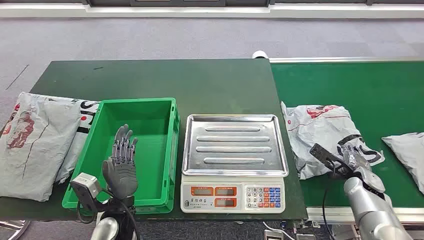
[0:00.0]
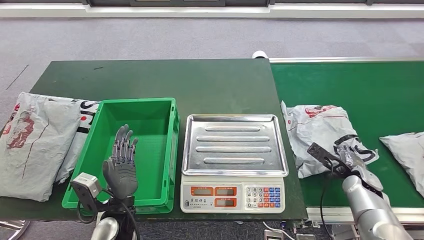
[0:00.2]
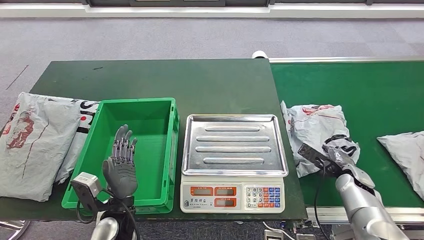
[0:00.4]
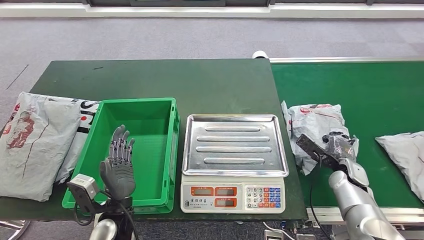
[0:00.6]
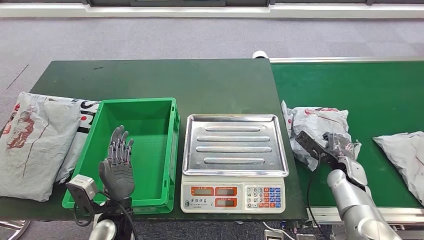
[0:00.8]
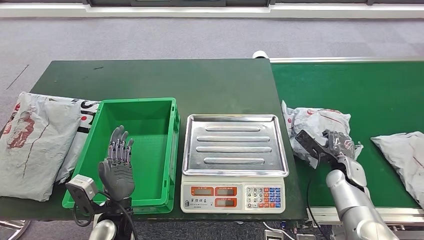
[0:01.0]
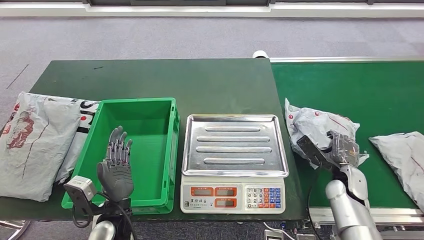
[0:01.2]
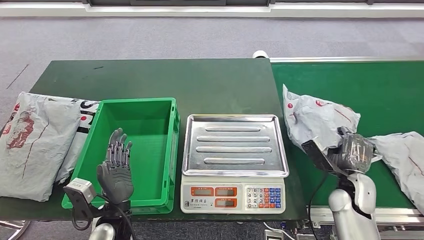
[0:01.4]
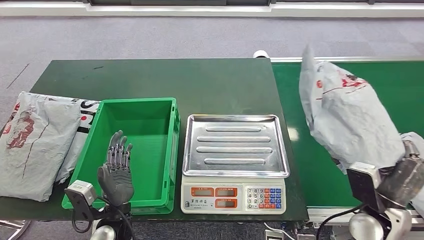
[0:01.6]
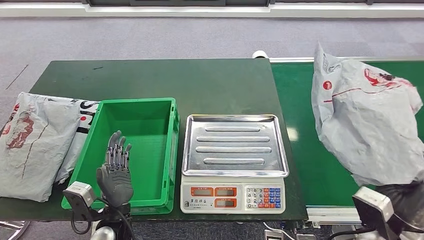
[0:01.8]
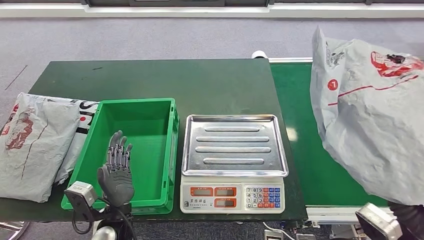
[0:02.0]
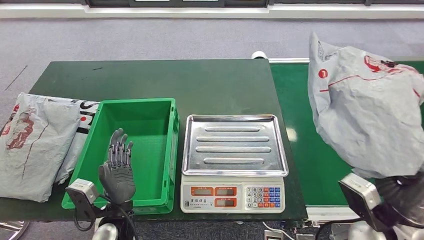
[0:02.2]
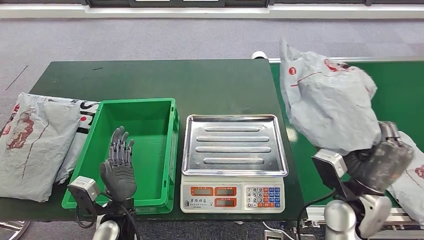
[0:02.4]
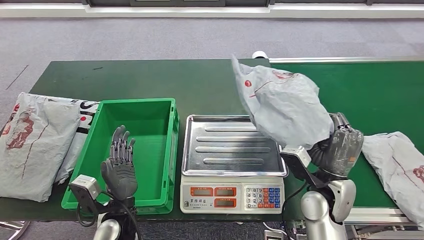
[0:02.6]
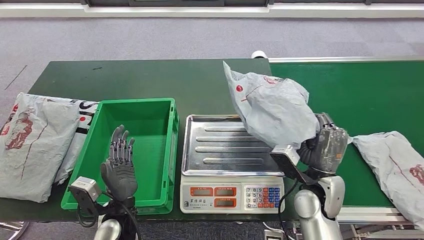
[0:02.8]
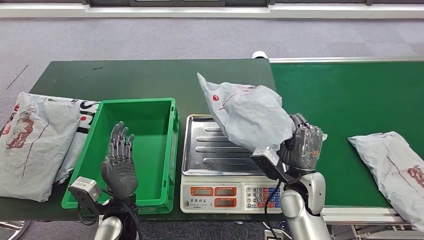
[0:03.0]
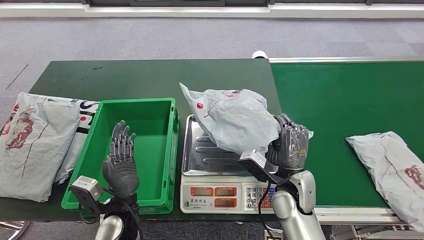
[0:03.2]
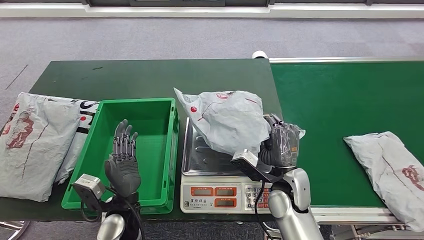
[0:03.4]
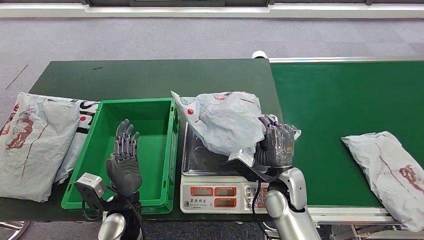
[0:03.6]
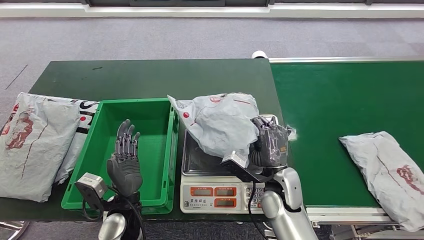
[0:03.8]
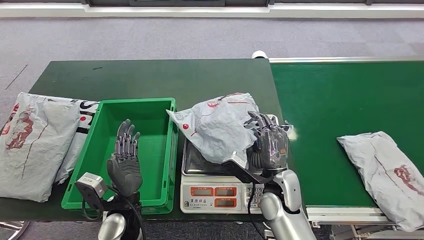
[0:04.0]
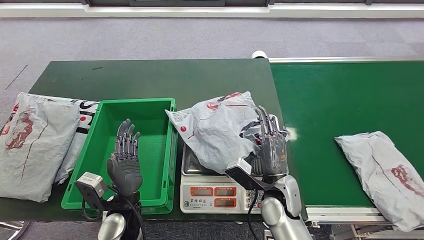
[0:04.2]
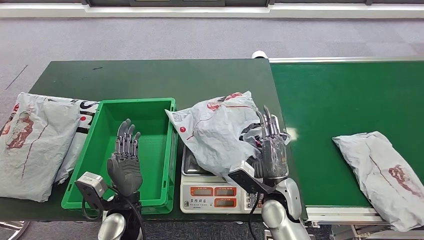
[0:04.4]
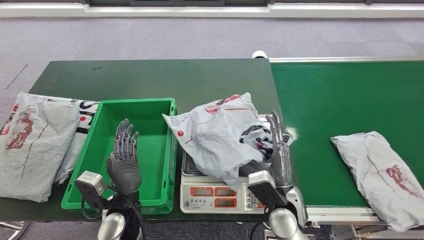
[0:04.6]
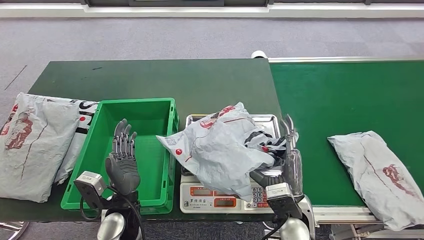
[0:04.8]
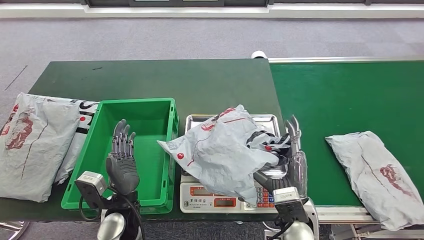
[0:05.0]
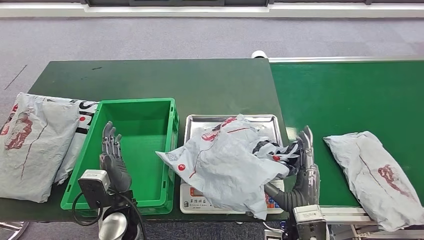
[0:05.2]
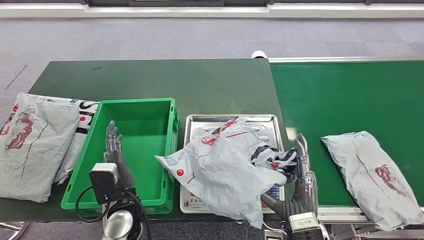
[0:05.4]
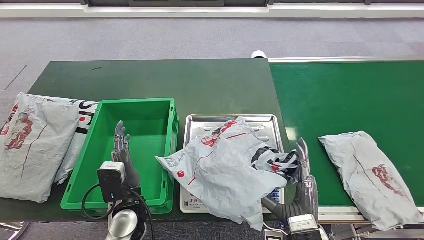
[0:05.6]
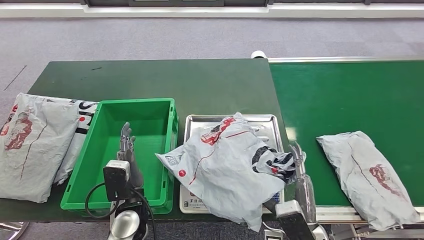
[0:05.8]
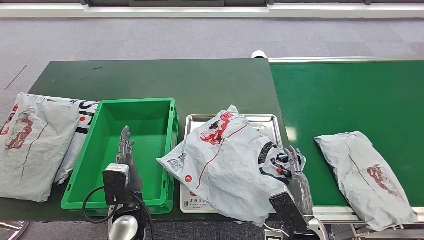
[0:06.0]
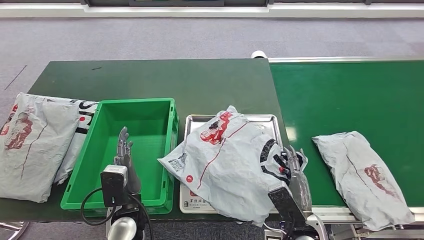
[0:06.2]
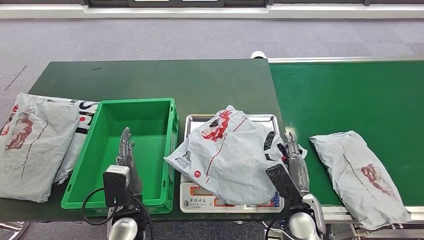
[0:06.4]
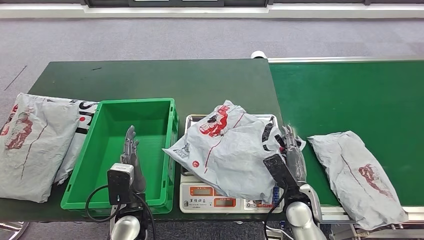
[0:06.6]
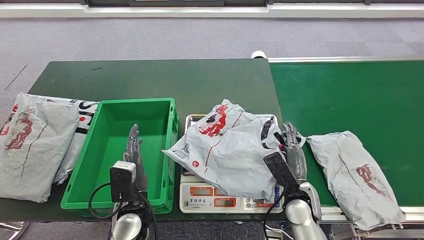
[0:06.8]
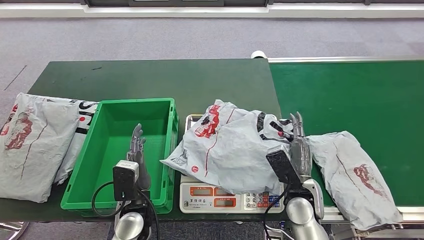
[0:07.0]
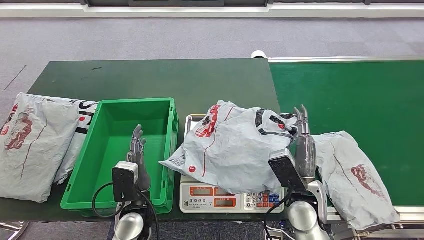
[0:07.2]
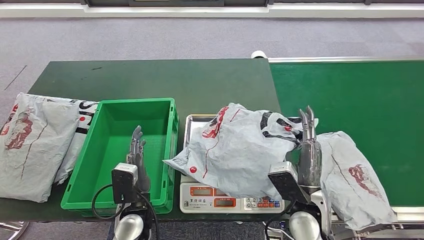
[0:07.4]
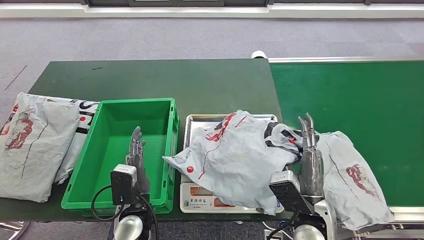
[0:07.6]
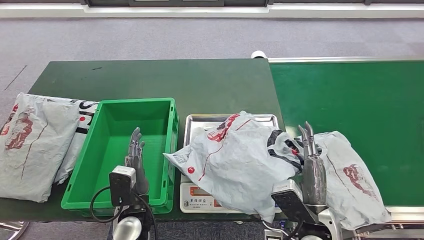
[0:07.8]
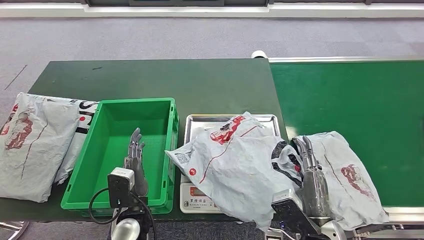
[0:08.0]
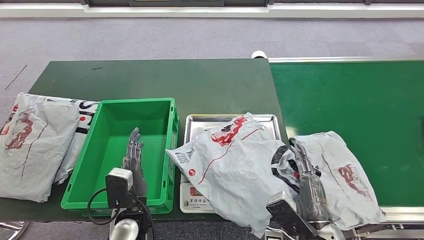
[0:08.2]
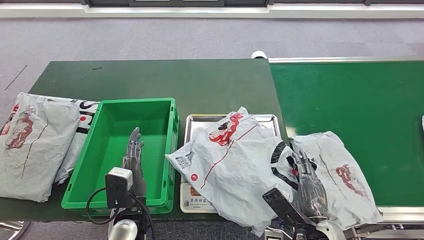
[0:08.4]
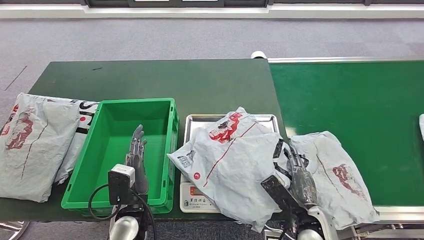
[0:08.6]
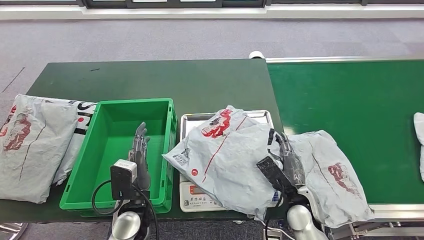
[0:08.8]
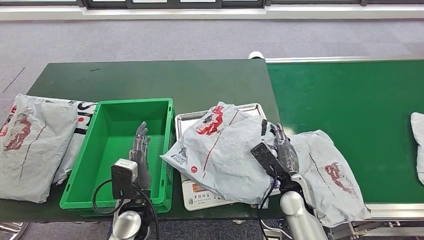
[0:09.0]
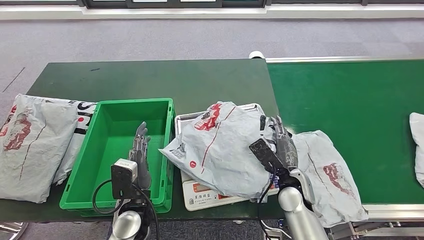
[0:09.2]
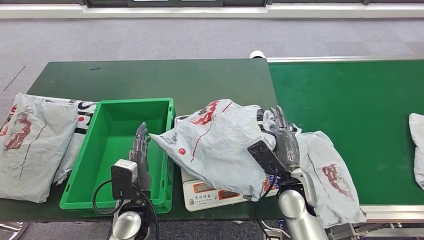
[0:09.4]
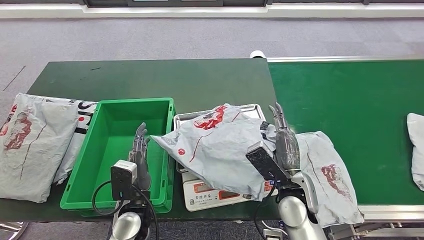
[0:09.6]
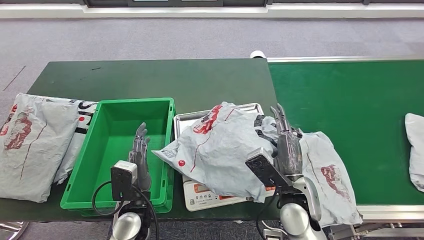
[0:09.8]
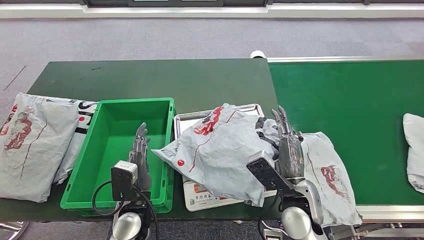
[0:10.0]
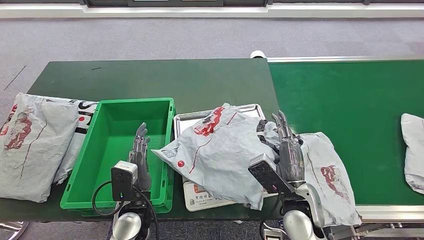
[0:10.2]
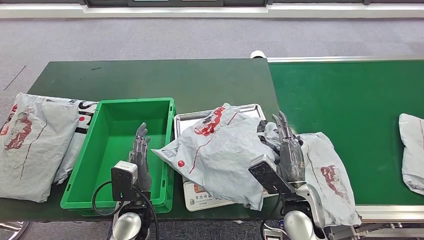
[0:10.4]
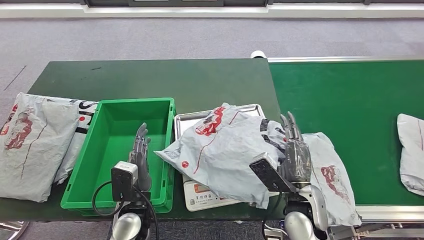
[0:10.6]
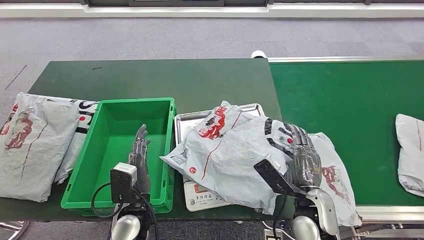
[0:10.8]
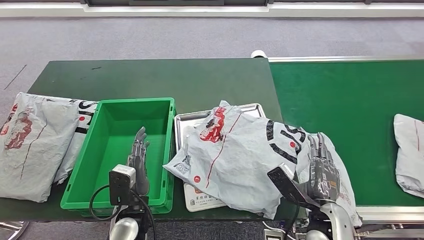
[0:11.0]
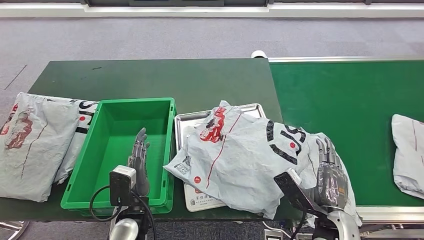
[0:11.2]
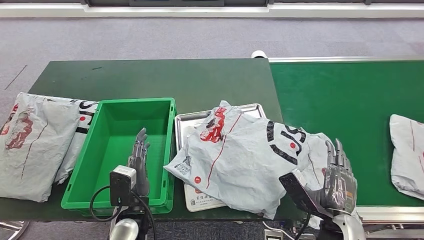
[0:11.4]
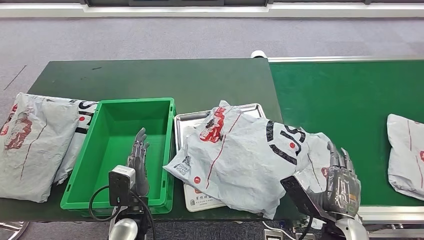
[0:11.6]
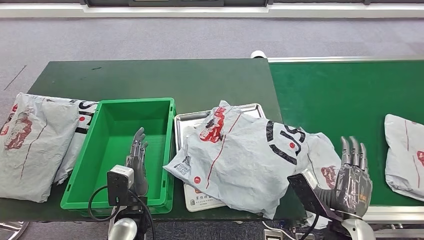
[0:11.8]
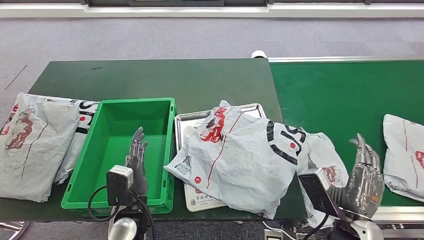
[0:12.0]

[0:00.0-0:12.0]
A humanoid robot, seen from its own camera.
Step, 0.0 to 2.0 s: Take the parcel off the conveyor belt.
Step, 2.2 to 4.8 s: Place the parcel onto the inbound machine.
3.0 to 4.4 s: The right hand shifts by approximately 5 cm.
6.0 to 7.6 s: The right hand moves upward, roughly 5 cm.
9.0 to 10.4 s: The right hand travels upward by roughly 5 cm.
10.4 to 12.0 s: The right hand goes approximately 10 cm to the right and backward.

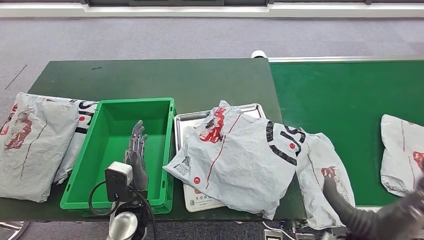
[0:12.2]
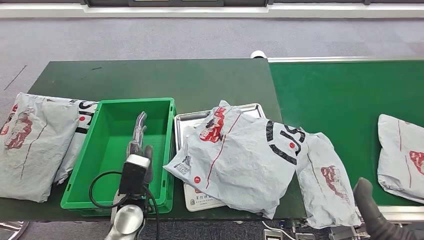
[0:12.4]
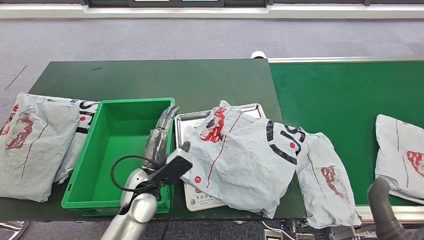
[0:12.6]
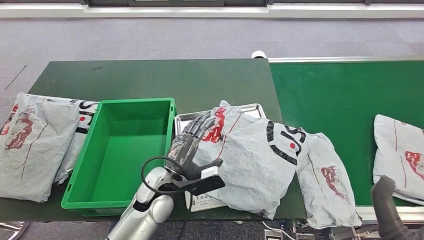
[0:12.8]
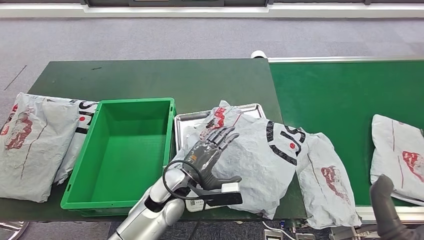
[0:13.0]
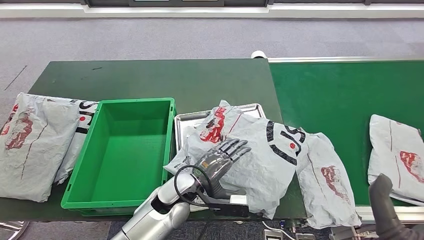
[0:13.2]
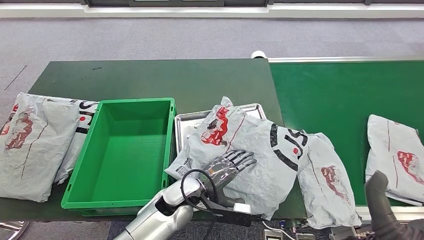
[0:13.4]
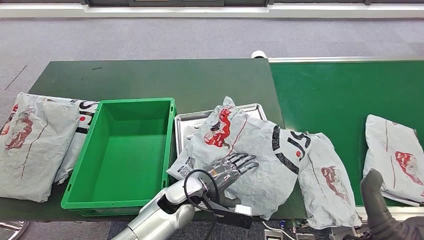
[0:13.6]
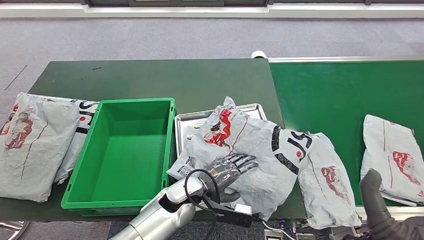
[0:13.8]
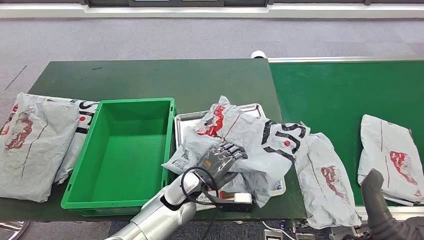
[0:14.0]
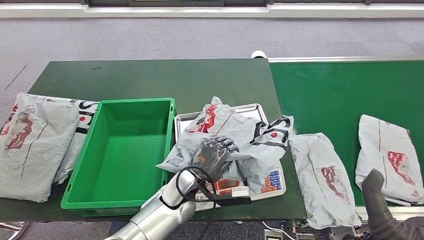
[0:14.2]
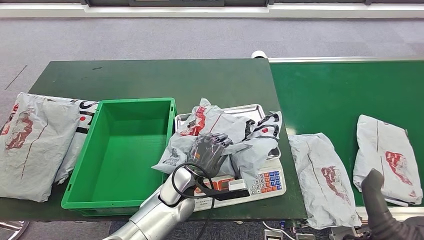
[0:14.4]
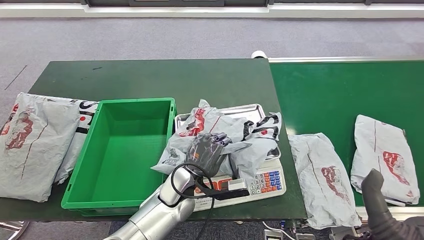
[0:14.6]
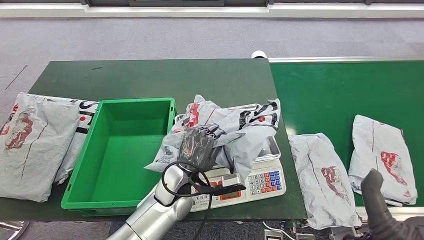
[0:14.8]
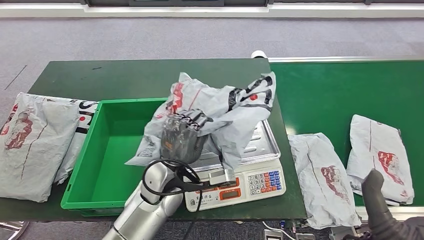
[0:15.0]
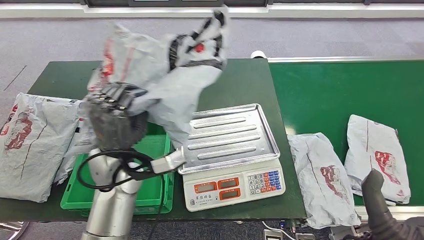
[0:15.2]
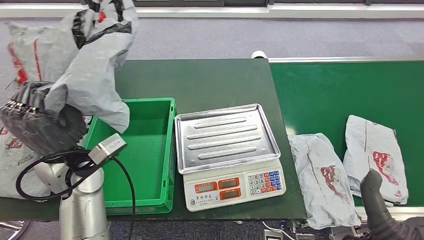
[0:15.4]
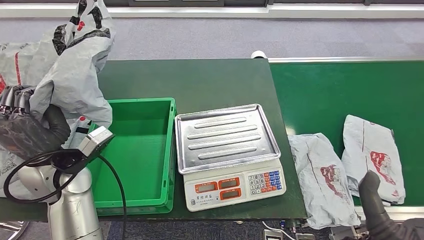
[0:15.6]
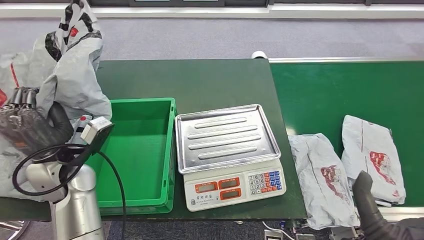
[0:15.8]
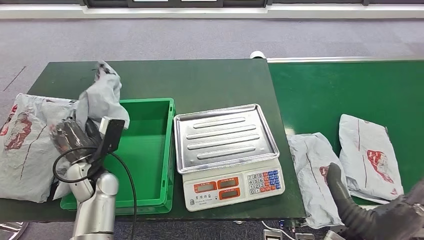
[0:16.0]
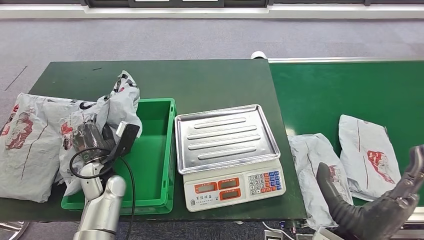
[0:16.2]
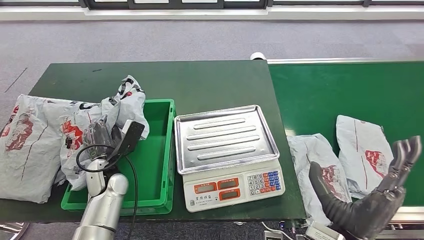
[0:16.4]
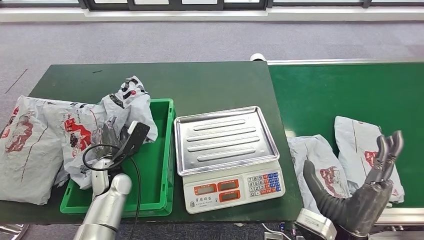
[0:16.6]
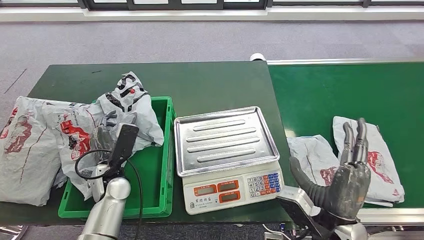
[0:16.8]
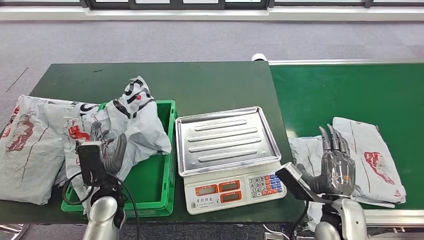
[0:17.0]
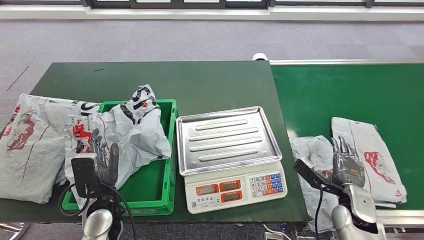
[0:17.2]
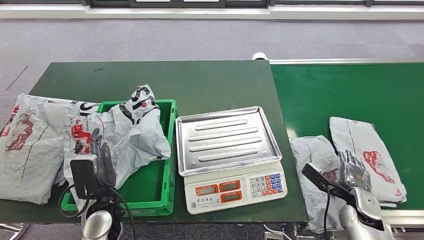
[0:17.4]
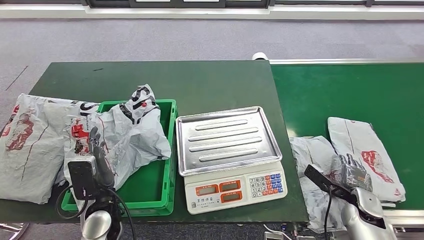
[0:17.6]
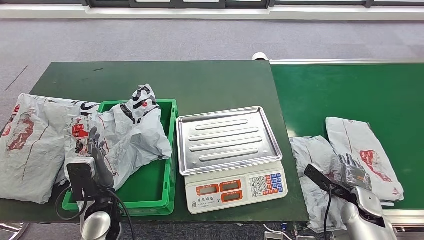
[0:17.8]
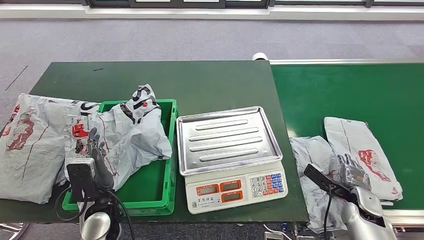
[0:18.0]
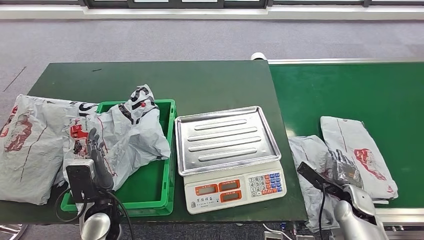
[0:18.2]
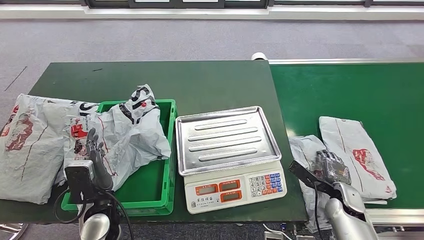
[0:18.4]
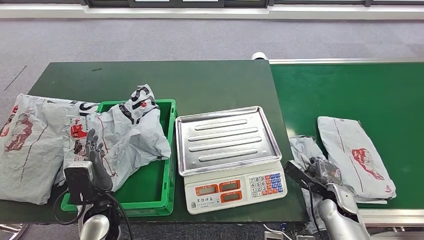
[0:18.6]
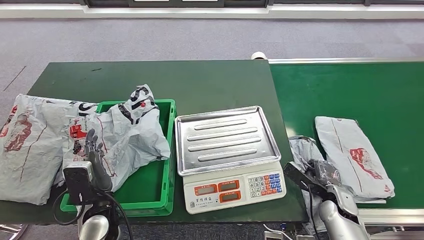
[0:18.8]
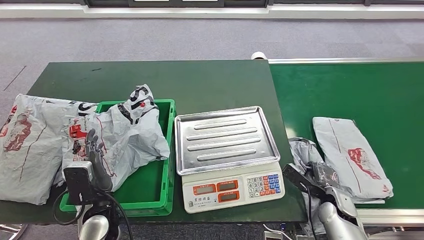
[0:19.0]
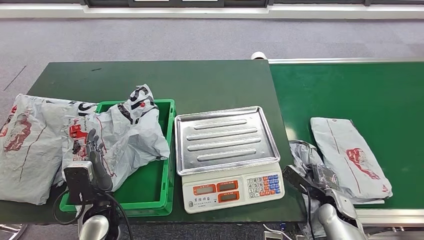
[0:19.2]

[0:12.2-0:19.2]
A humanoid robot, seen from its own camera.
Step, 12.2 to 15.8 s: Pick up the parcel from the inbound machine.
12.2 to 13.6 s: The left hand travels to the right and forward by some 10 cm.
